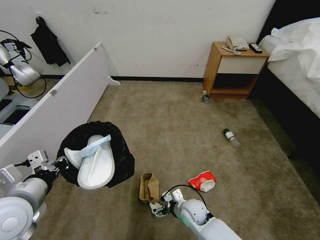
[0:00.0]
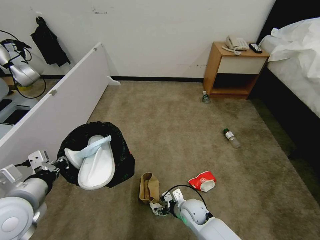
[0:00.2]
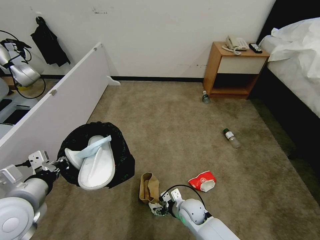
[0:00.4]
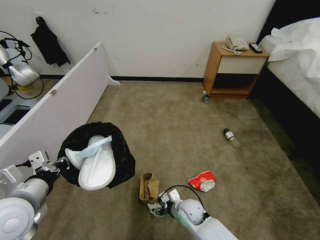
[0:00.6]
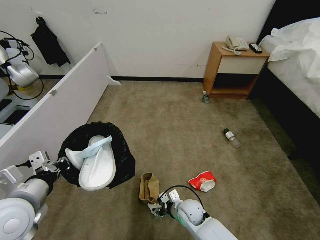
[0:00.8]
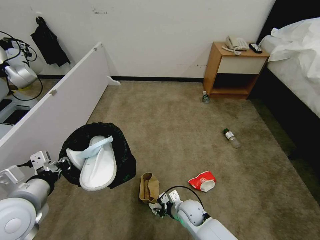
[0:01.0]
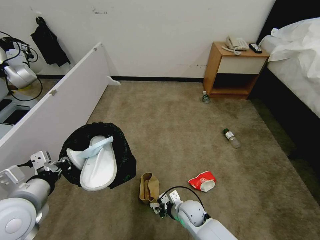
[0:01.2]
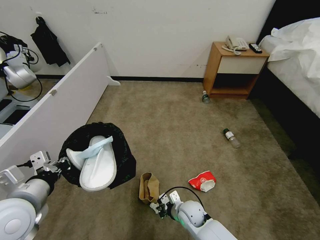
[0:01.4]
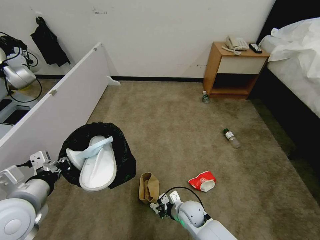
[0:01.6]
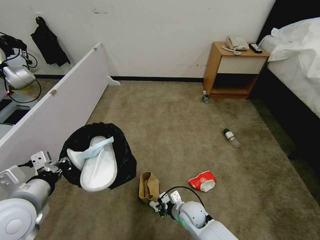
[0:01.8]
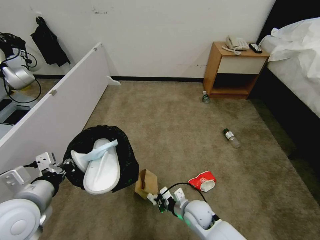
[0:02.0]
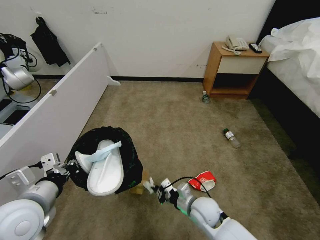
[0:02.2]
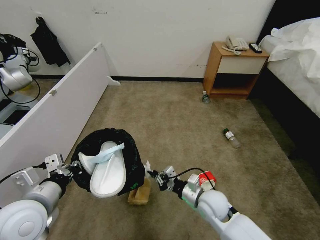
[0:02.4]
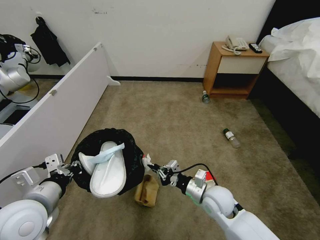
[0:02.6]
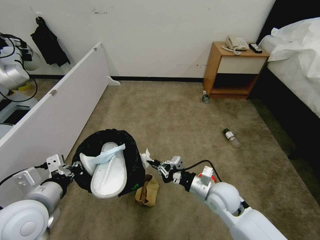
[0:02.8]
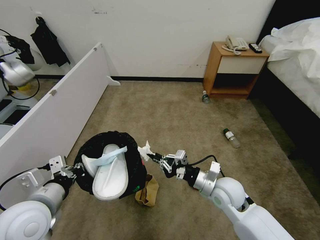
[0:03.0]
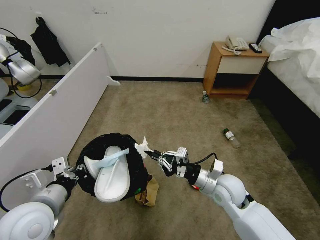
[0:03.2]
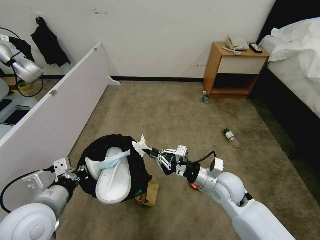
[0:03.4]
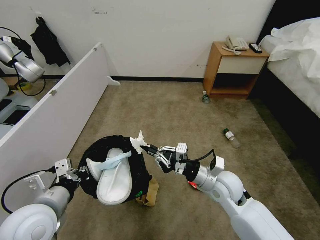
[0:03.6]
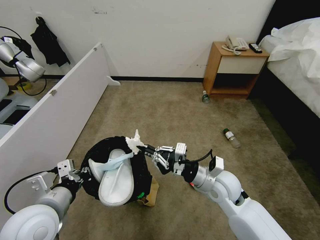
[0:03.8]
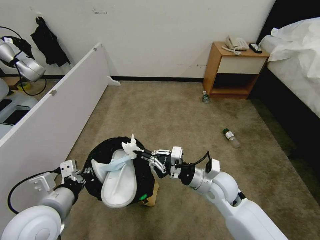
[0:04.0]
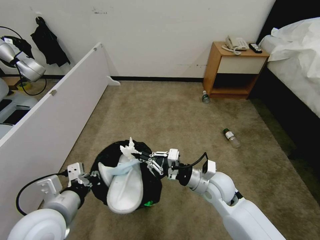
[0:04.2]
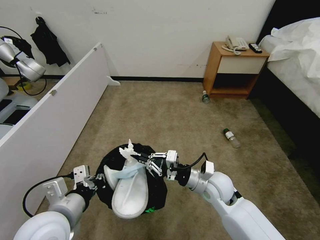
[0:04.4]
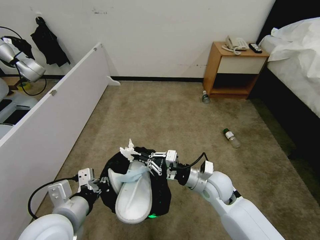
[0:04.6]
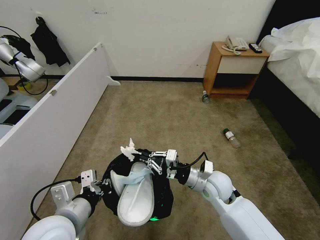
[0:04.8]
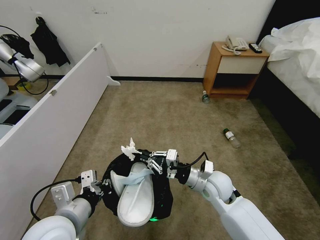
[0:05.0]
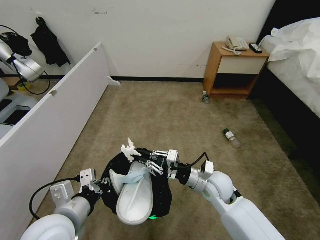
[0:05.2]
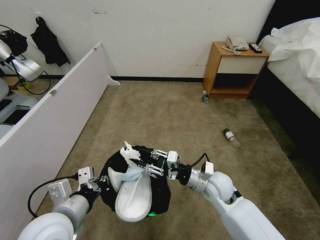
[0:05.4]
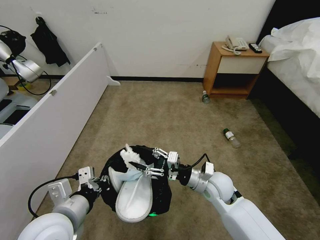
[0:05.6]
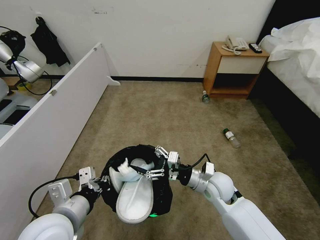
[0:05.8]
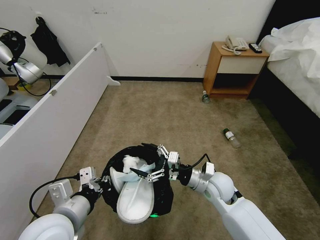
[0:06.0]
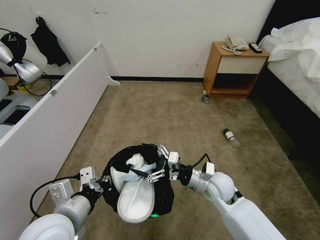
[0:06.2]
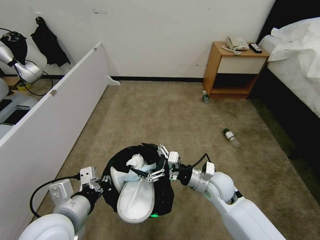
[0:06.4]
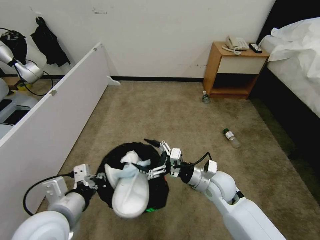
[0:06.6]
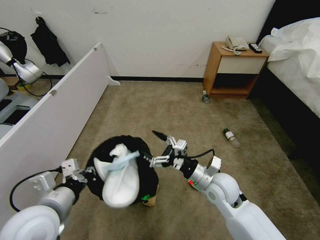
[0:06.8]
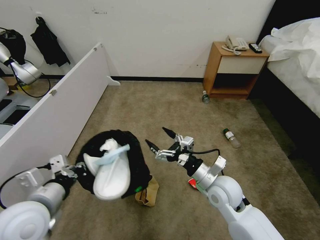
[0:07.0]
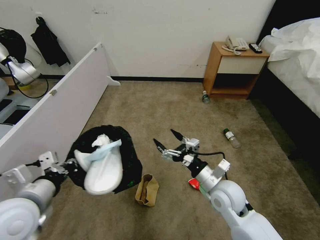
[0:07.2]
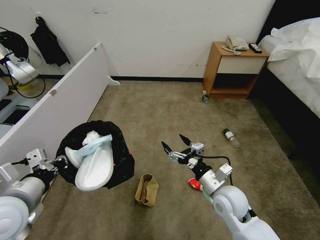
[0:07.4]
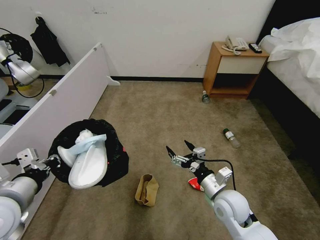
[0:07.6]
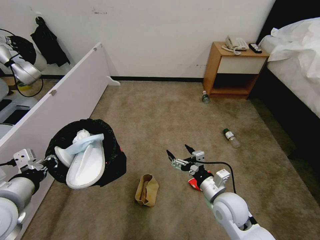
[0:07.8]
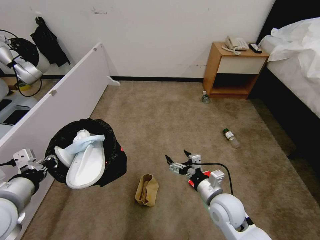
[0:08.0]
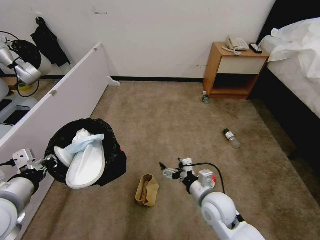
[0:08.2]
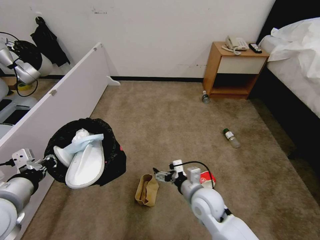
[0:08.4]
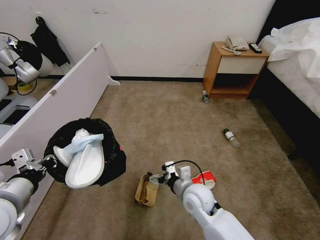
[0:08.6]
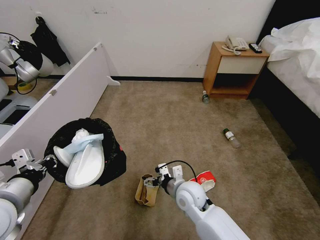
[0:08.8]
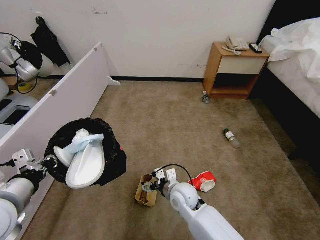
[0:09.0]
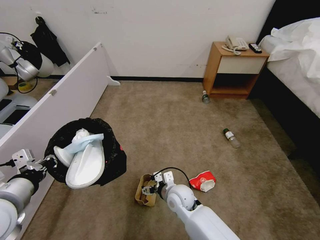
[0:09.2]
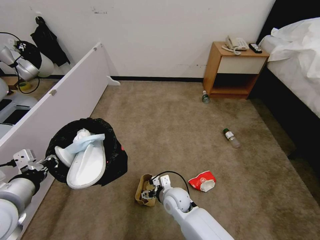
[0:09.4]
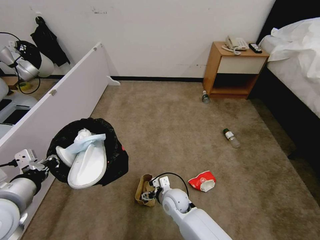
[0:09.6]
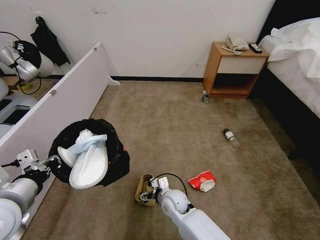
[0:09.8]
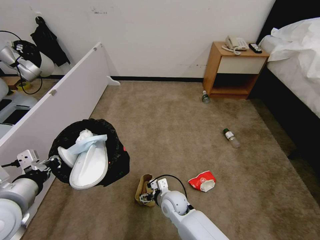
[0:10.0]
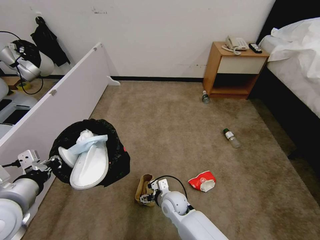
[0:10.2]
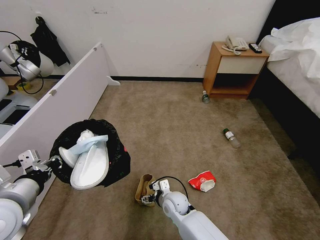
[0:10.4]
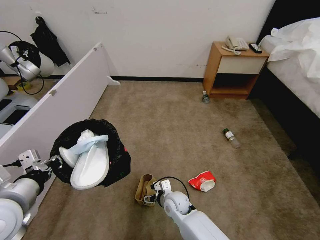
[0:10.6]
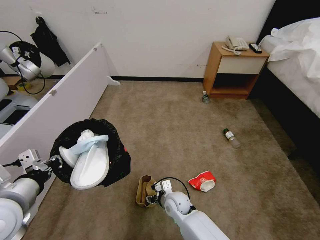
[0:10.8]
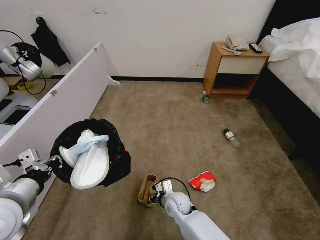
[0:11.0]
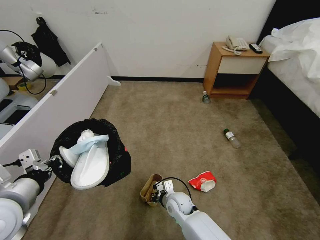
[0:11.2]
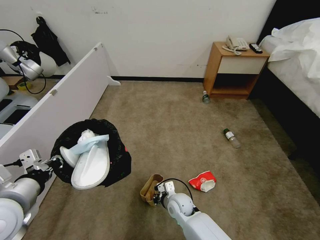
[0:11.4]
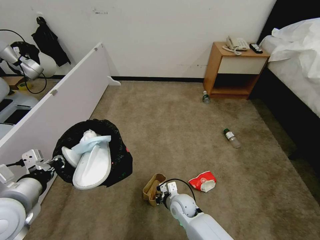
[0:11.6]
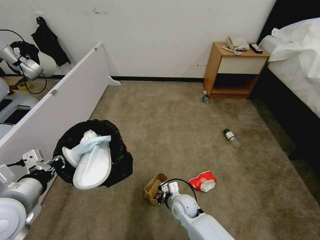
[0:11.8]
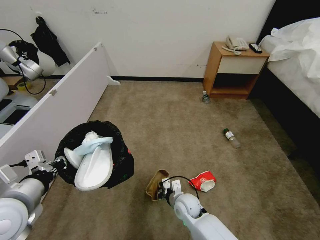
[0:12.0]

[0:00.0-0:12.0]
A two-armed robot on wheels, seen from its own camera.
Task of the whole recording: Pick up the trash bin, then pick up the garbage from the floor and place it into the trash bin.
0:00.0 to 0:01.6: The right gripper closes.
0:01.6 to 0:03.0: The right gripper is displaced upward and to the right by approximately 20 cm.
0:03.0 to 0:04.4: The left gripper ends up roughly 5 cm from where it was.
0:04.4 to 0:06.0: The right gripper opens up.
0:06.0 to 0:07.6: The left gripper travels to the left by roughly 10 cm. The right gripper goes about 5 cm backward.
0:07.6 to 0:09.0: The right gripper shifts about 15 cm to the left.
0:09.0 to 0:10.4: The right gripper shifts some 10 cm downward.
0:10.4 to 0:12.0: The right gripper closes.

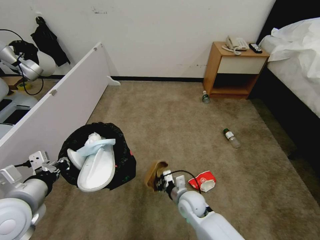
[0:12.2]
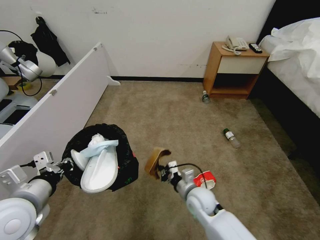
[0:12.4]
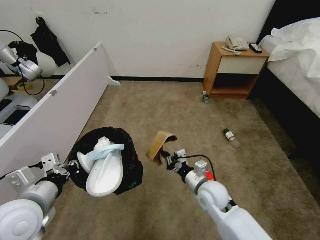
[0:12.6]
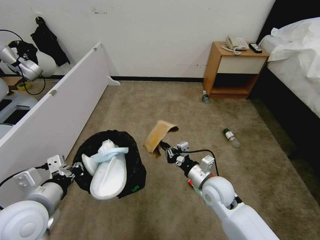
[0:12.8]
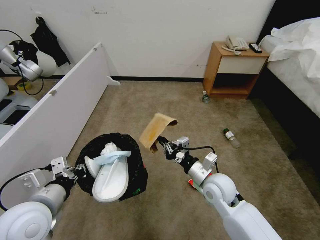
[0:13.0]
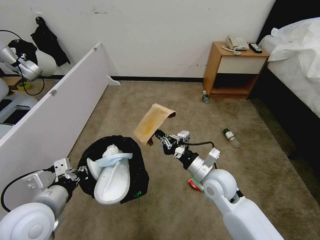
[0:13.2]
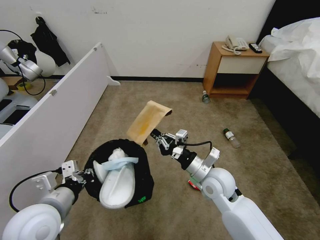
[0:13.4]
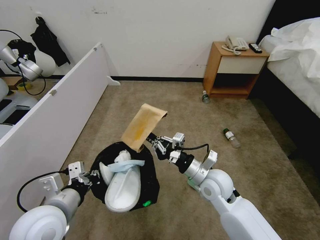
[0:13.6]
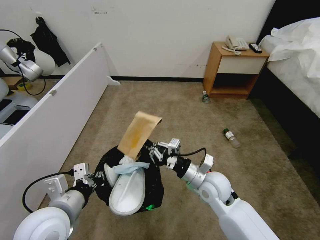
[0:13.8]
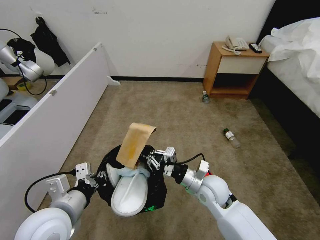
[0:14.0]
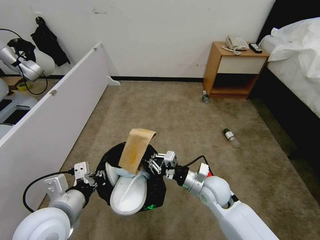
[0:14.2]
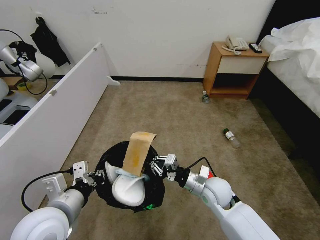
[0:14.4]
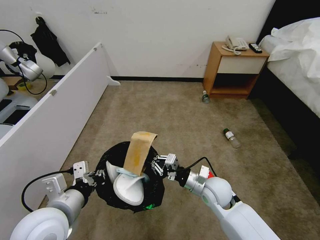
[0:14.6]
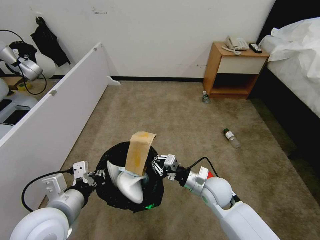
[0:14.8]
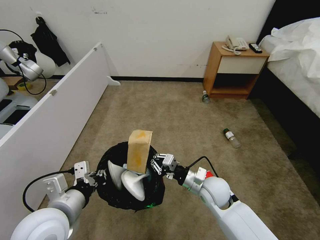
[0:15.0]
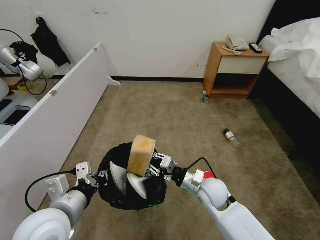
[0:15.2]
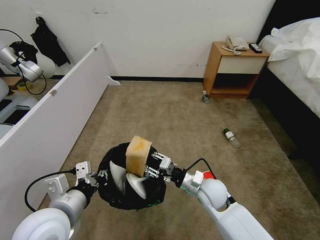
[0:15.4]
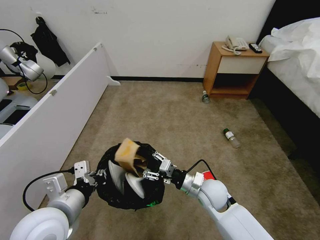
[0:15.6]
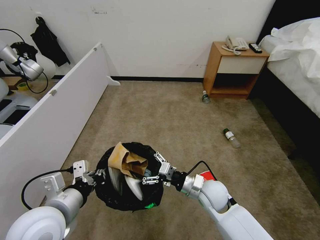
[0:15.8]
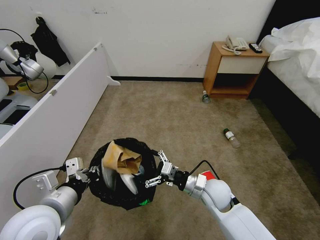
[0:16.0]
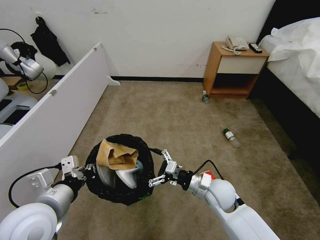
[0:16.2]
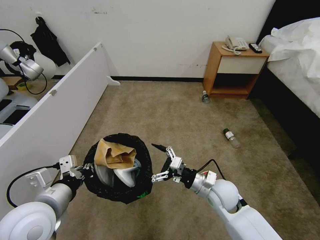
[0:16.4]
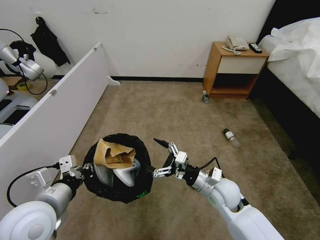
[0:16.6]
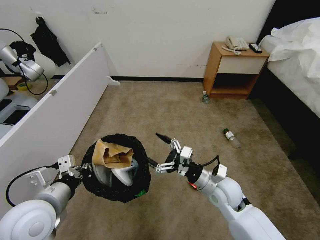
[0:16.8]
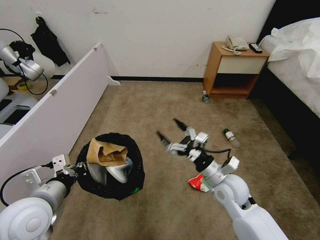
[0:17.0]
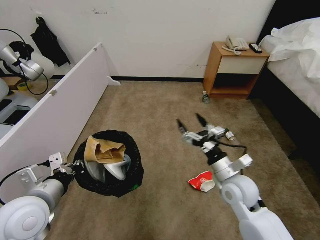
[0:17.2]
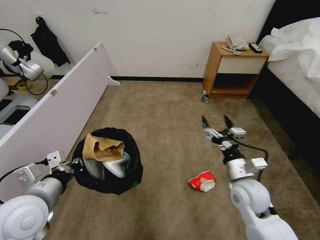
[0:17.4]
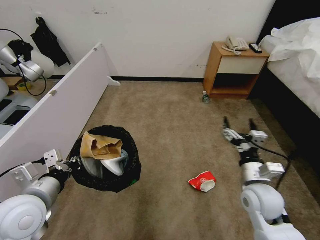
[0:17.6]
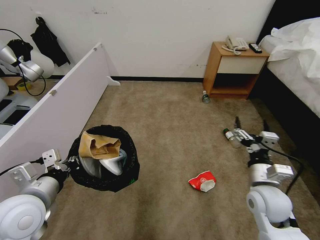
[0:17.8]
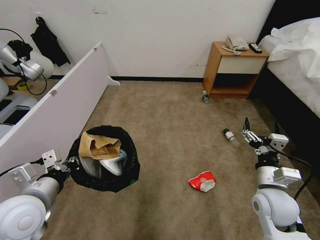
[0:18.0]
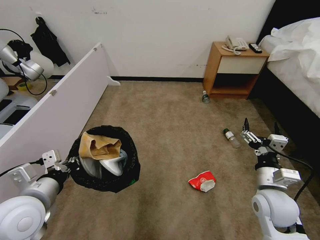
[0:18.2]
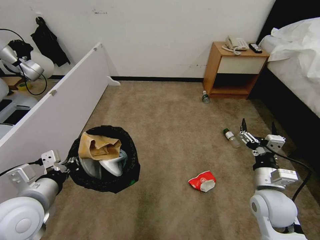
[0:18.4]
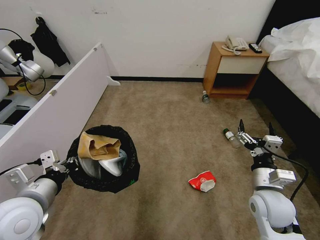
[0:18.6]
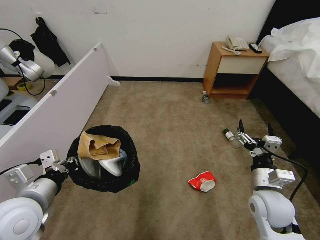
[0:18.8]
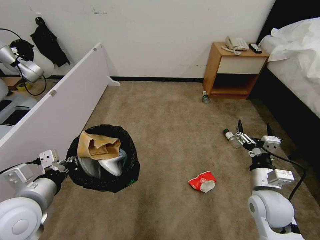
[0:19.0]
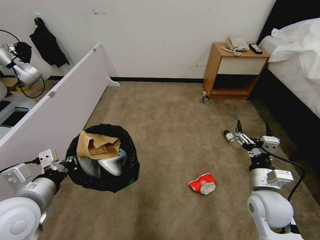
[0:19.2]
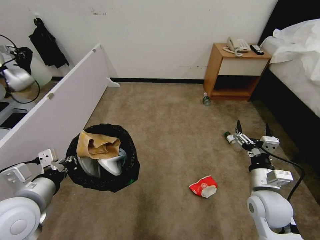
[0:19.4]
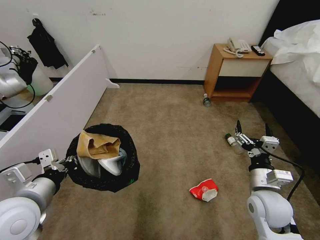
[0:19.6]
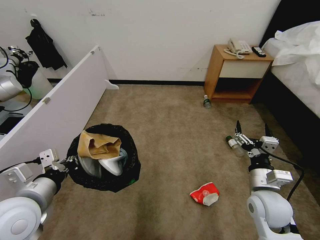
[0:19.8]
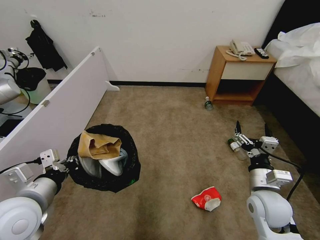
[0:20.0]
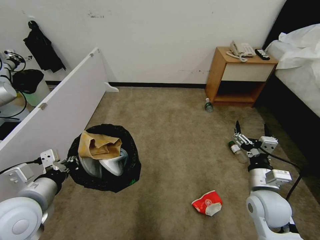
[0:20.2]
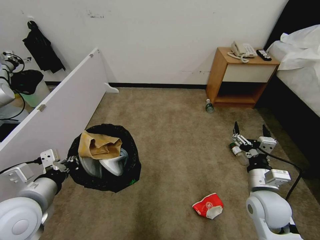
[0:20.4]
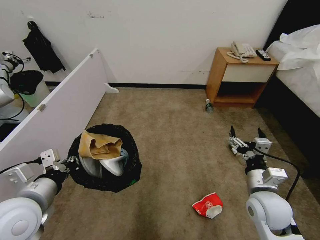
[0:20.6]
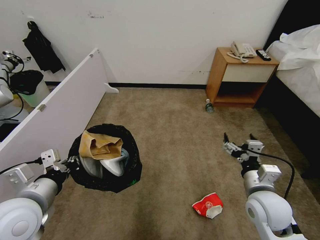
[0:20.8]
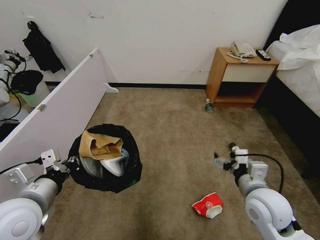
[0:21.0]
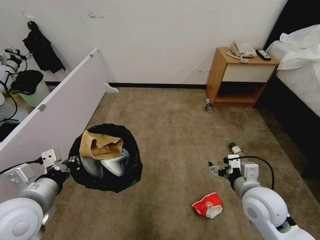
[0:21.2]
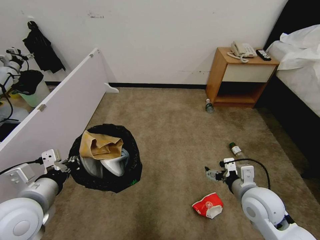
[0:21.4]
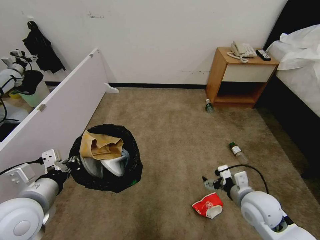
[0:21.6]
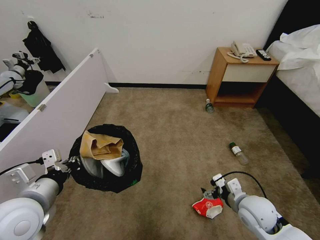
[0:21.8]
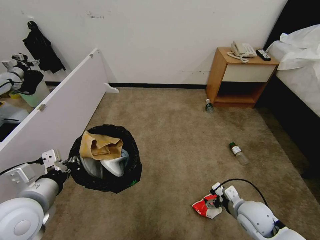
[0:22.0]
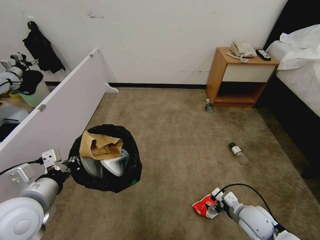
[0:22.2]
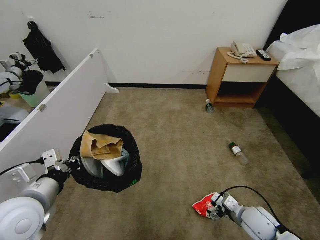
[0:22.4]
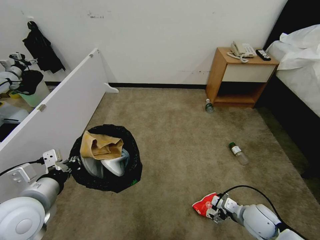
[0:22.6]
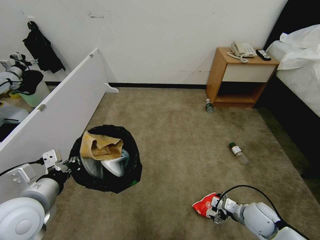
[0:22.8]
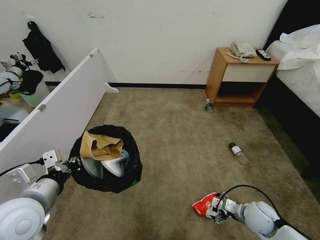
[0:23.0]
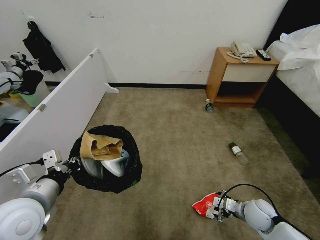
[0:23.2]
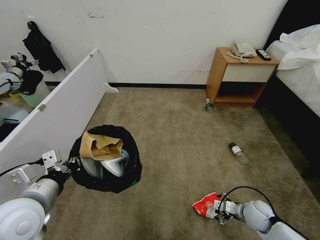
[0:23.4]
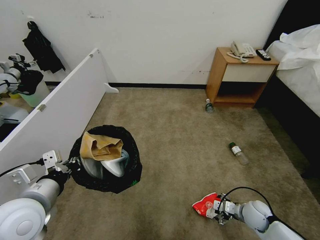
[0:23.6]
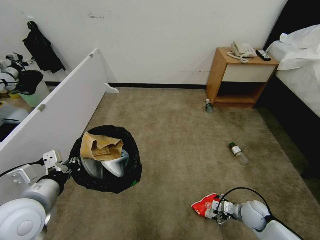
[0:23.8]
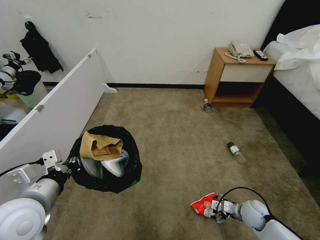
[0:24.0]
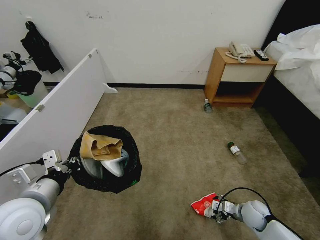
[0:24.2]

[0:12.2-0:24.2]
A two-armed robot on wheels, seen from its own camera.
Task of the whole recording: Pick up the trash bin, then pick up the garbage from the floor and place it into the trash bin.
0:12.2 to 0:13.8: The left gripper moves to the right, some 5 cm. The right gripper shifts approximately 10 cm upward.
0:15.2 to 0:16.6: The right gripper opens up.
0:16.6 to 0:18.2: The right gripper is displaced to the right and backward by approximately 10 cm.
0:18.2 to 0:19.8: The two grippers keep their place.
0:21.2 to 0:22.6: The right gripper goes roughly 15 cm downward and to the right.
0:22.6 to 0:24.2: The right gripper goes roughly 5 cm downward.
